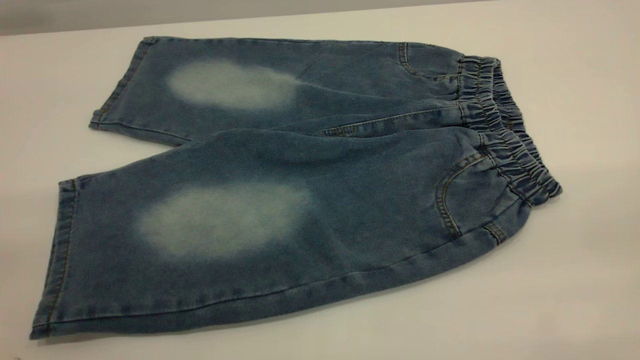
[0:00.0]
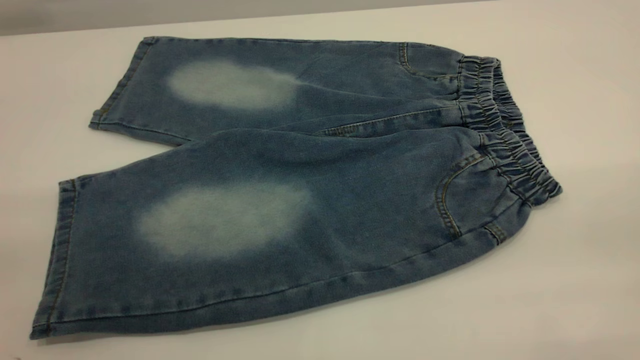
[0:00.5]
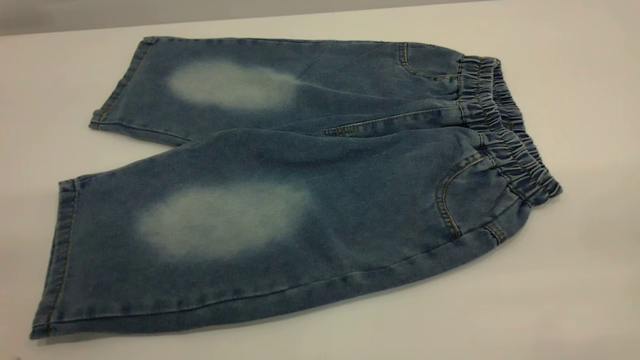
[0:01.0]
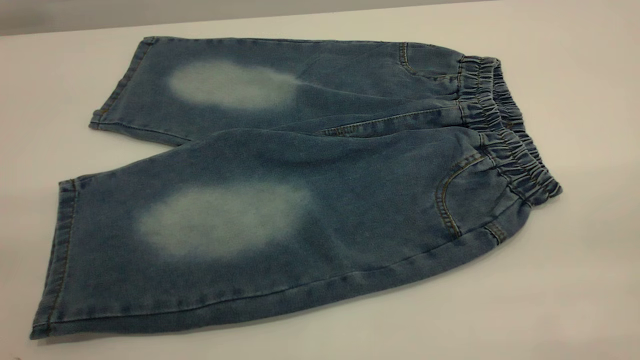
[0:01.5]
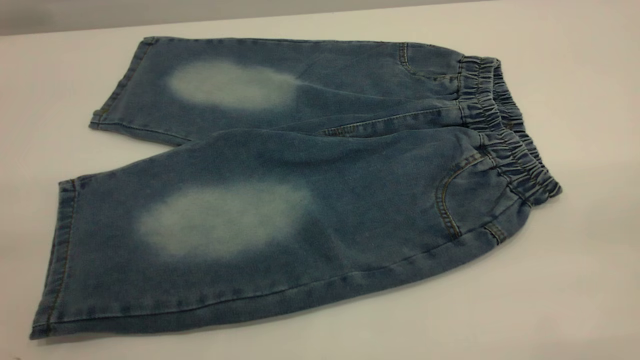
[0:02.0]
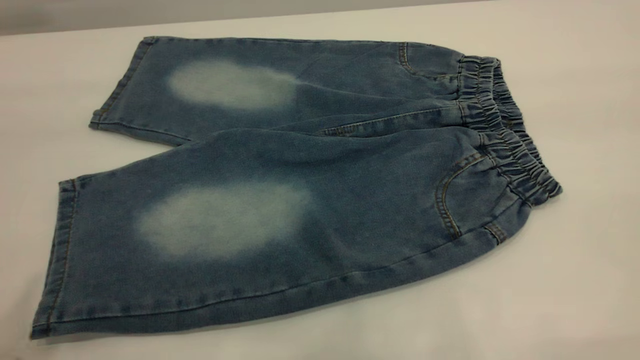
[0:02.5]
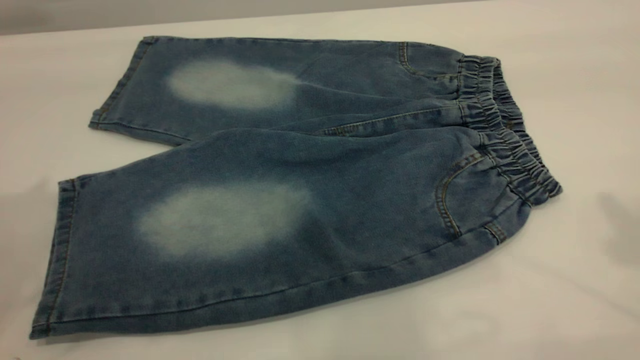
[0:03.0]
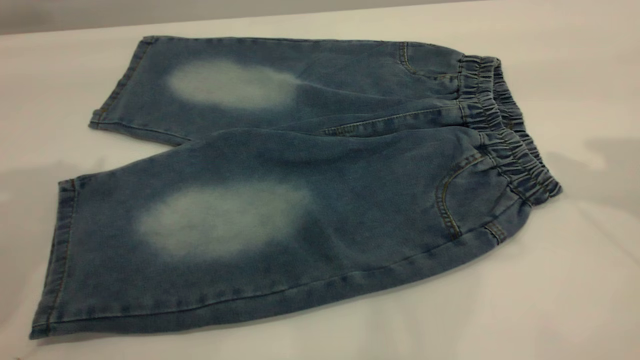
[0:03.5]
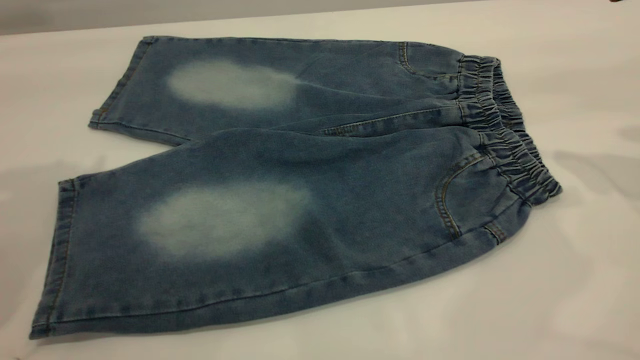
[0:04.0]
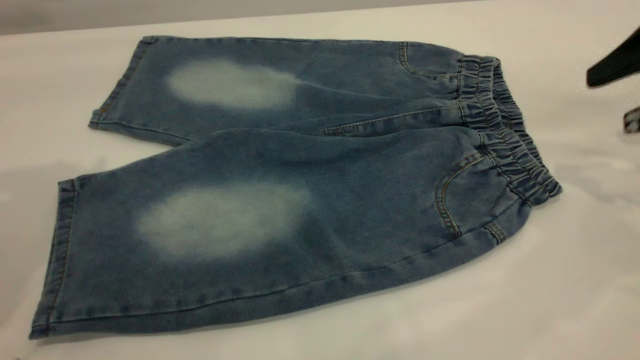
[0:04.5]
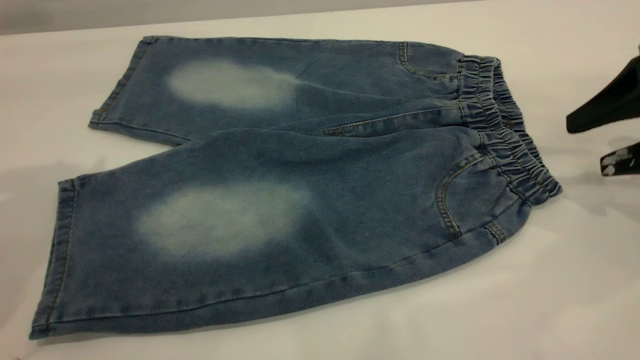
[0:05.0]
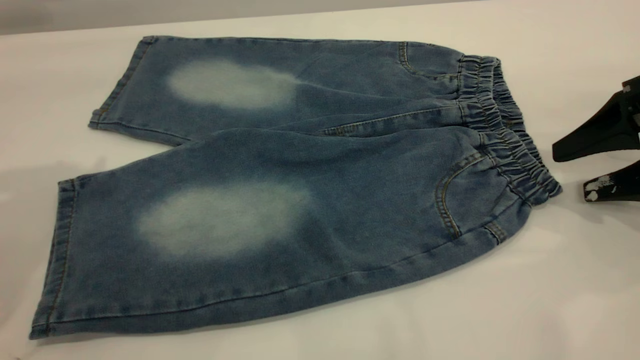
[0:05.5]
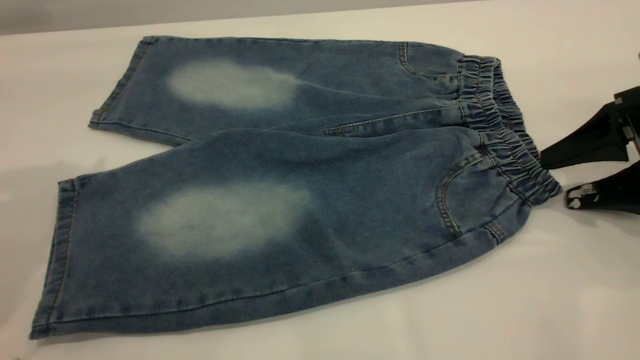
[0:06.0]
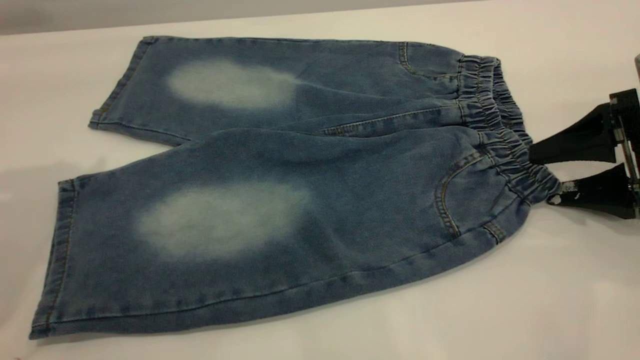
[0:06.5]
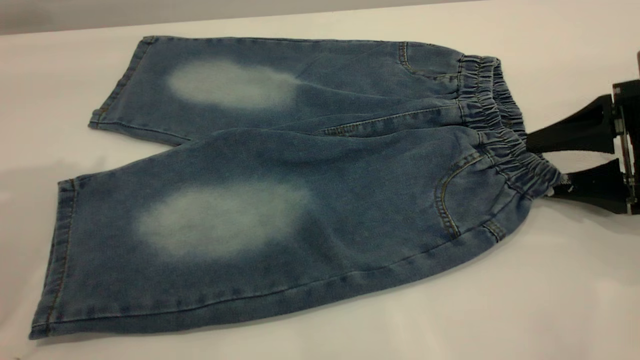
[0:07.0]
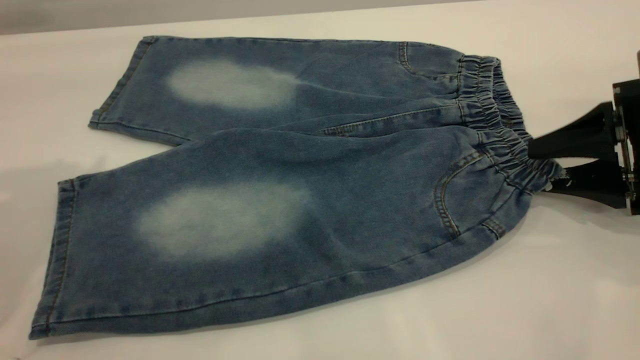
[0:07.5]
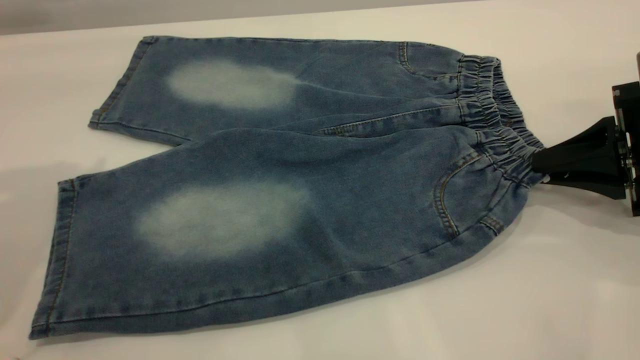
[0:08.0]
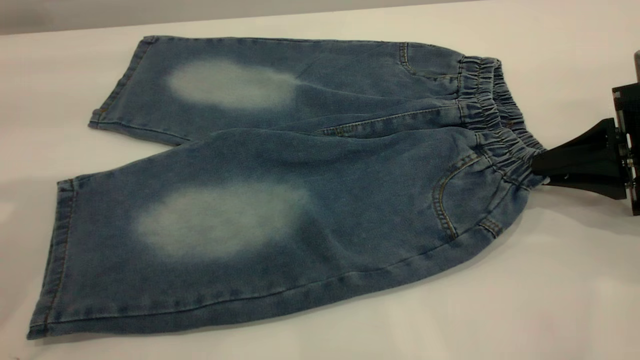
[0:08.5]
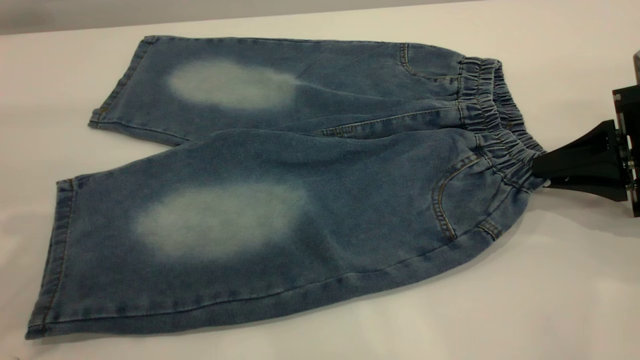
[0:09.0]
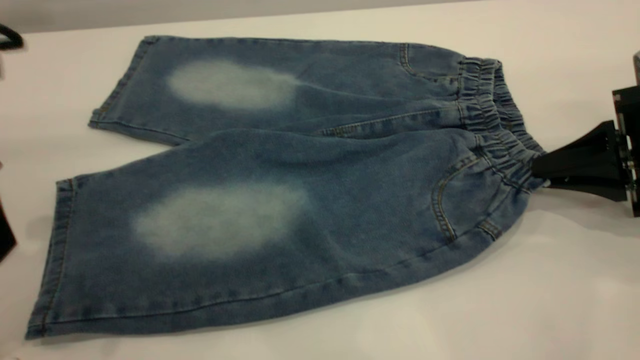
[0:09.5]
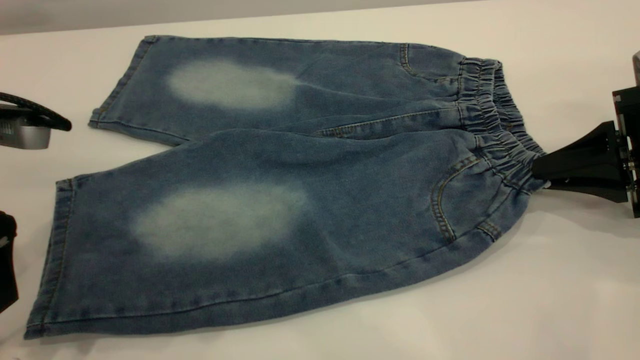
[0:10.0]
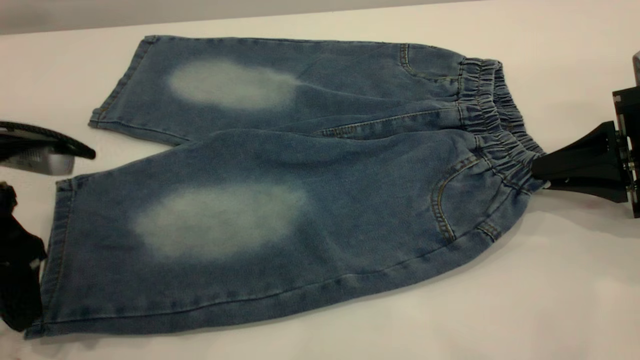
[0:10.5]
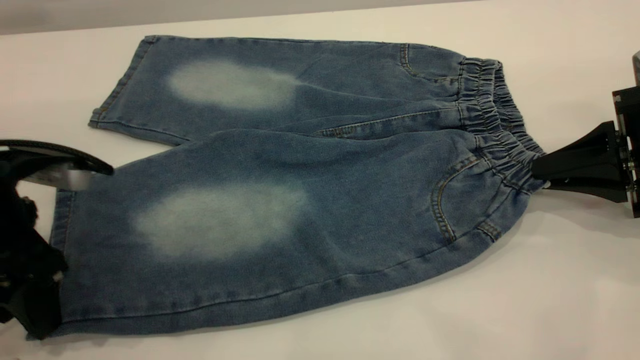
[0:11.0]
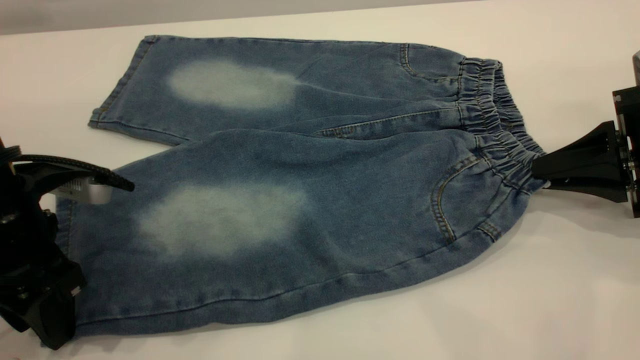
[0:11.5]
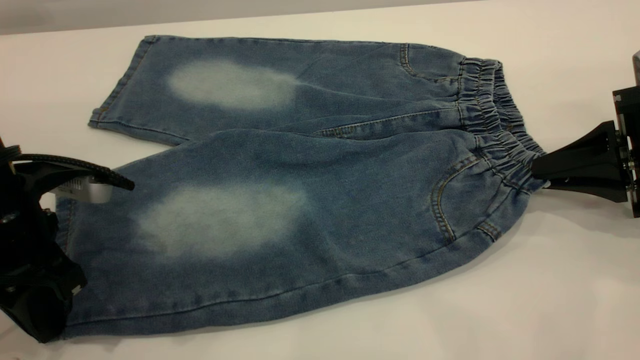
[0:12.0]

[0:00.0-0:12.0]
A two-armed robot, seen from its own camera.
0:04.0 to 0:06.0: The right gripper shifts approximately 15 cm downward.
0:06.0 to 0:08.0: The right gripper closes its fingers.
0:08.0 to 0:10.0: The left gripper is displaced downward by about 15 cm.
0:10.0 to 0:12.0: The left gripper travels downward by approximately 5 cm, and closes its fingers.

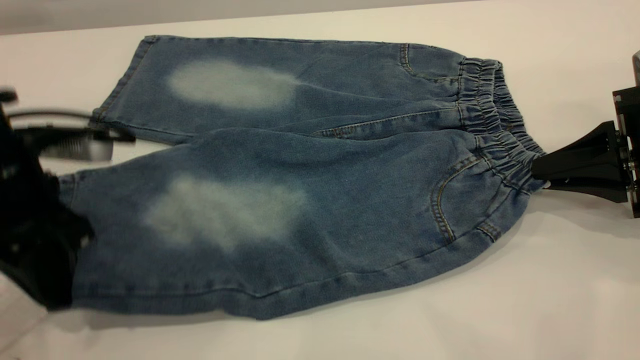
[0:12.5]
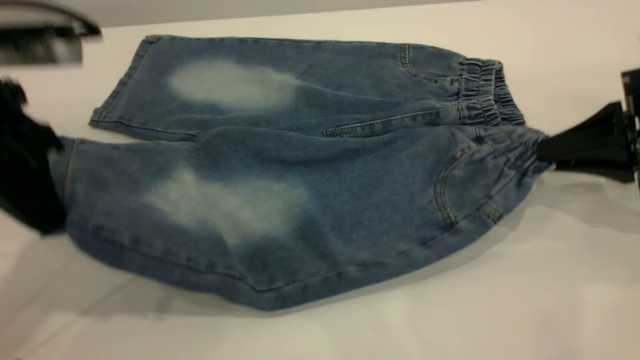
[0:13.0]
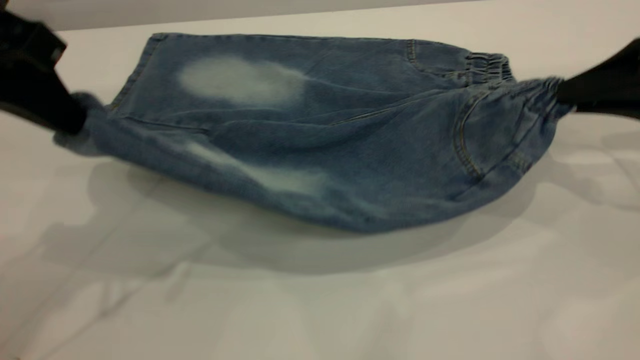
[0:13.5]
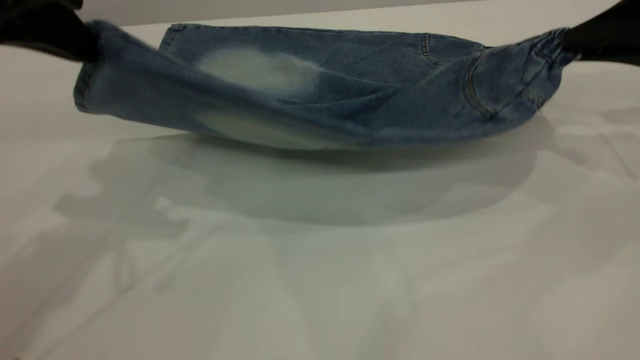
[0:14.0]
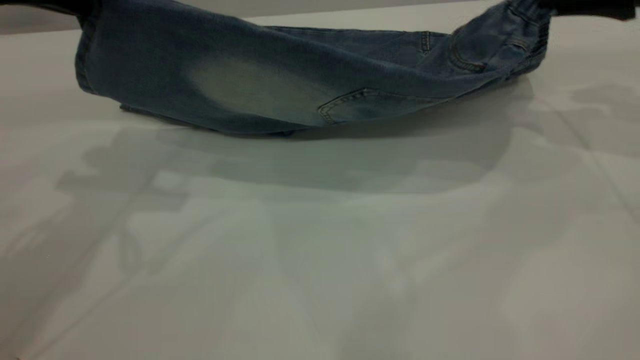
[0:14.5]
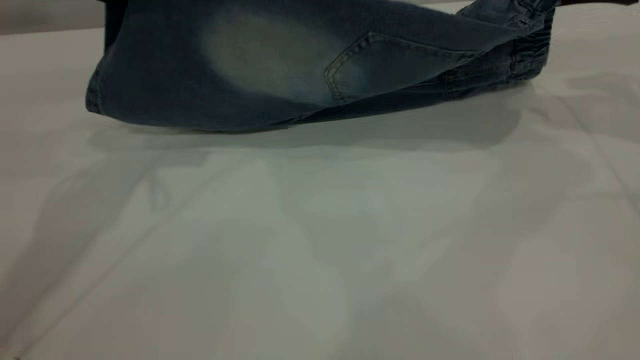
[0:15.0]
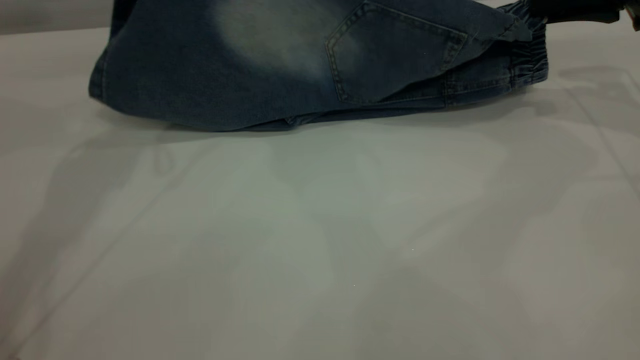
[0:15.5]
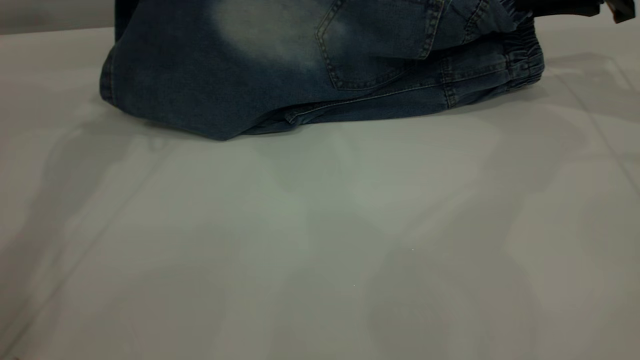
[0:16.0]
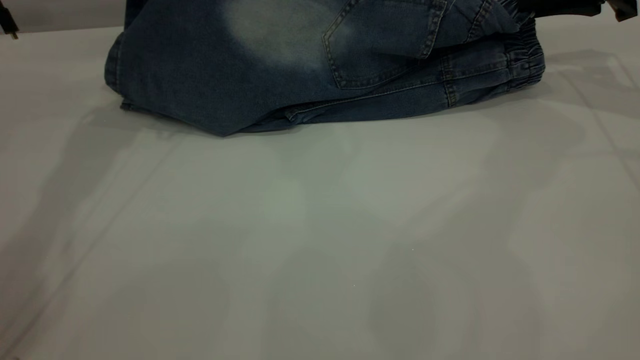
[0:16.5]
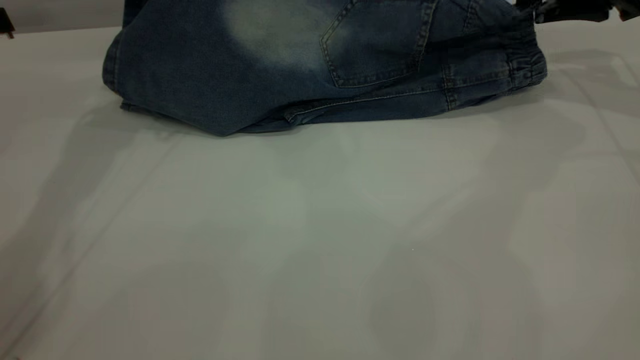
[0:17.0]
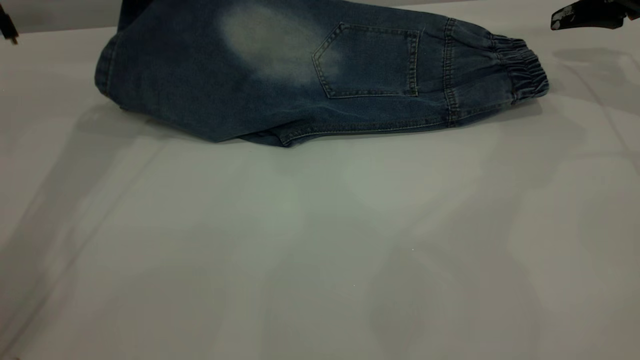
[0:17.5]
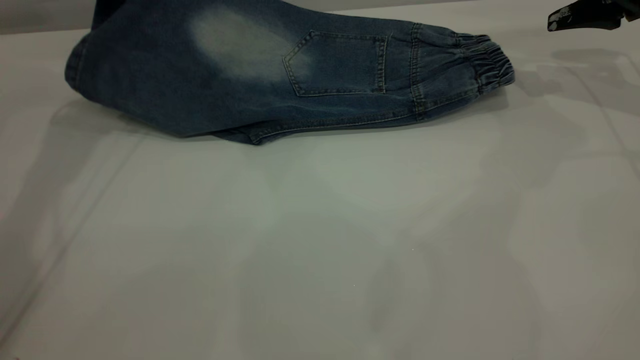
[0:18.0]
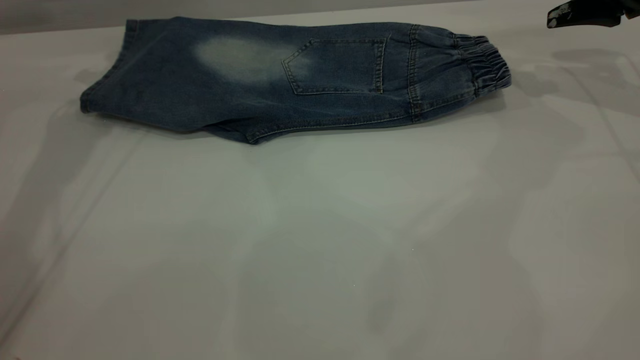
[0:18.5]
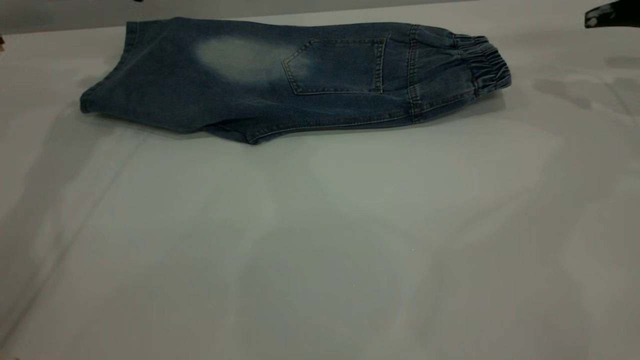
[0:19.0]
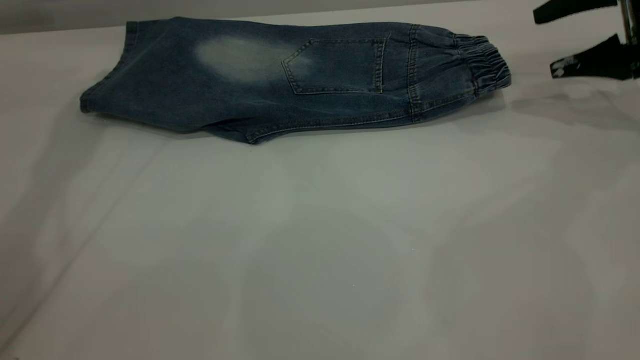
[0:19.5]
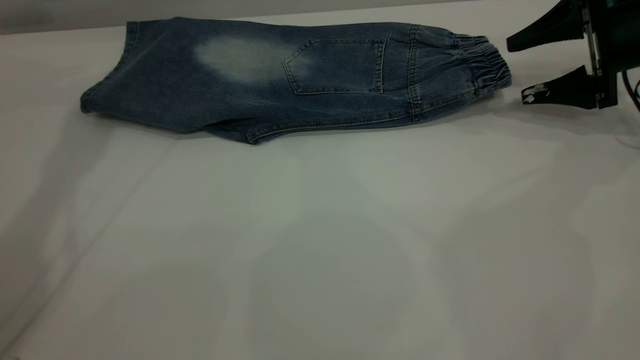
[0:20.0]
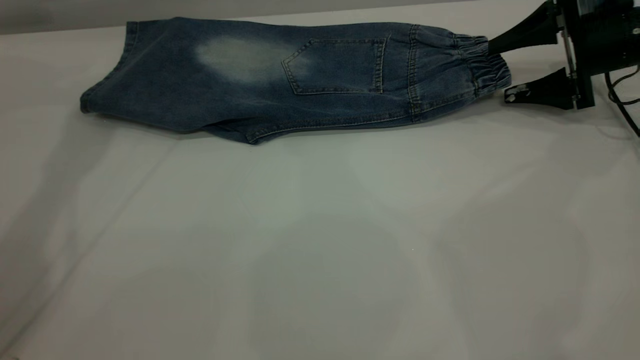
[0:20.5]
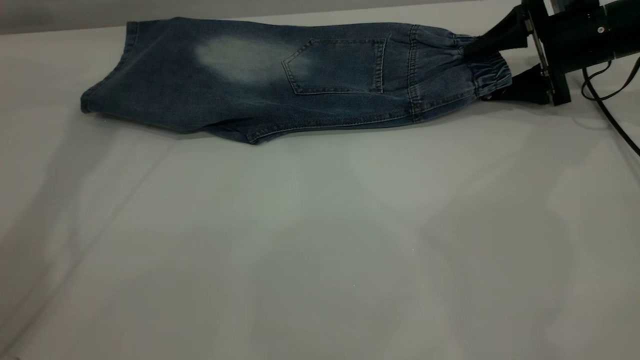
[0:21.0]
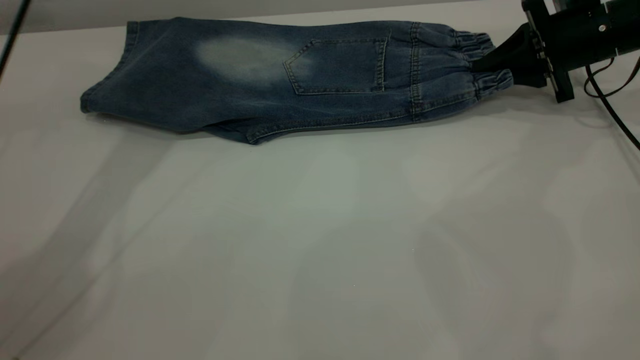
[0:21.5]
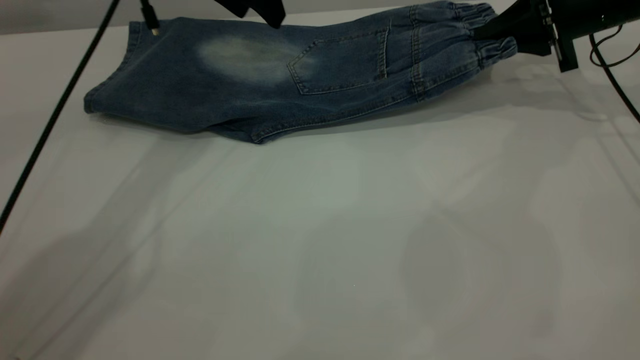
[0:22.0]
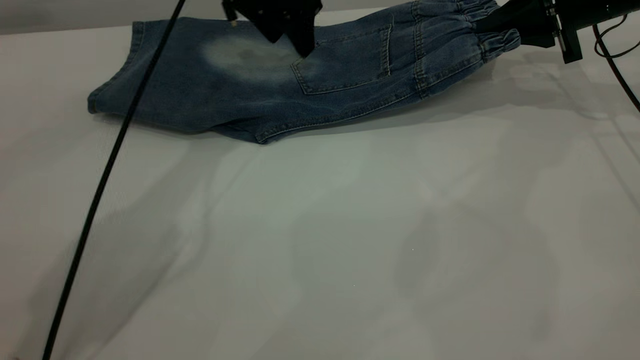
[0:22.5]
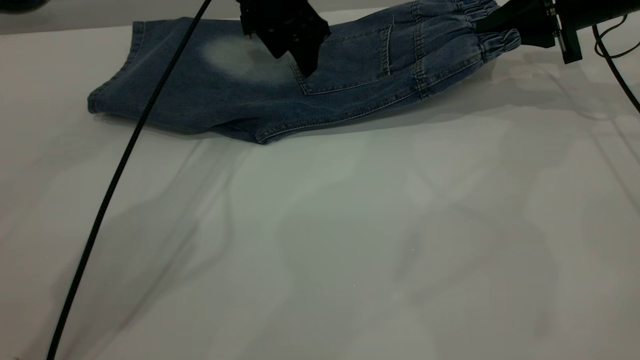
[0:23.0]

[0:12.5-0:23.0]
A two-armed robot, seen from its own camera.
Step, 0:12.5 to 0:18.5: Fold the bottom of the pants upward.
0:12.5 to 0:14.5: The two grippers go about 15 cm upward and forward.
0:14.5 to 0:16.5: The right gripper shifts some 5 cm forward; the left gripper travels forward by roughly 15 cm.
0:16.5 to 0:19.0: The right gripper heads to the right, covering about 5 cm, and opens its fingers, while the left gripper opens.
0:19.0 to 0:21.0: The right gripper goes roughly 10 cm downward and to the left.
0:21.0 to 0:23.0: The right gripper shifts about 5 cm upward, and closes its fingers. The left gripper is displaced to the right and downward by about 20 cm.
